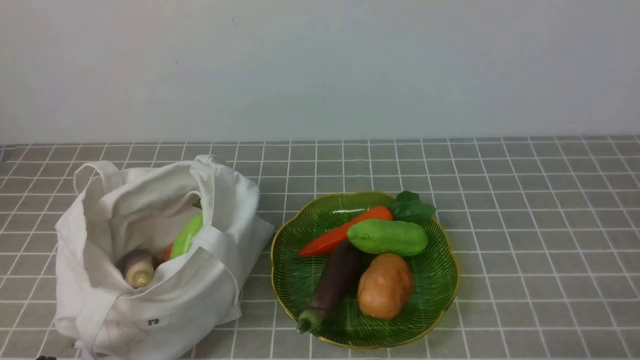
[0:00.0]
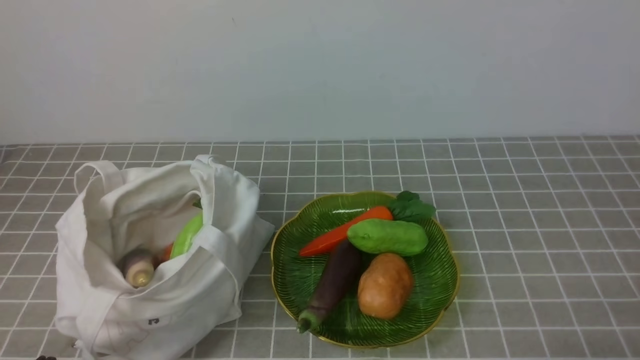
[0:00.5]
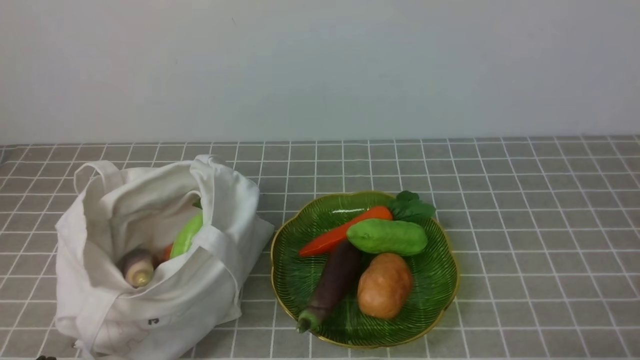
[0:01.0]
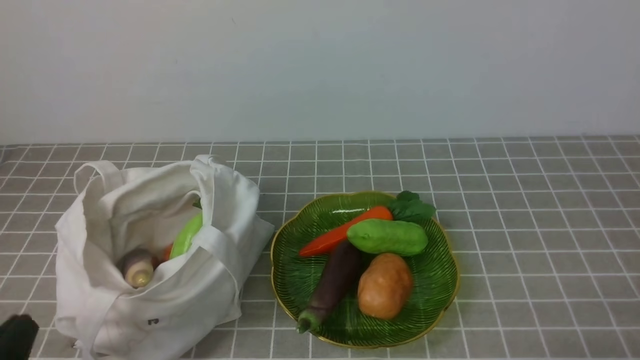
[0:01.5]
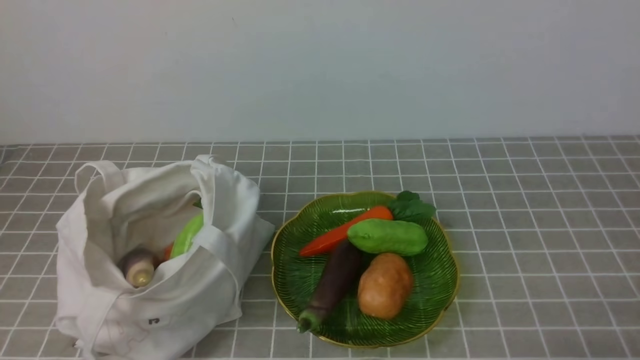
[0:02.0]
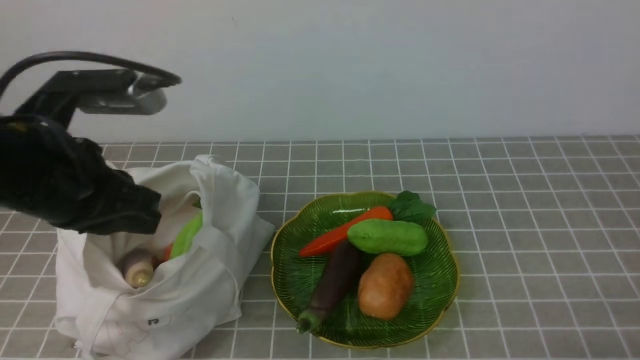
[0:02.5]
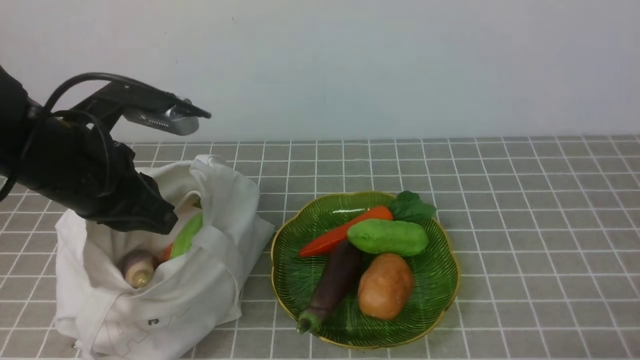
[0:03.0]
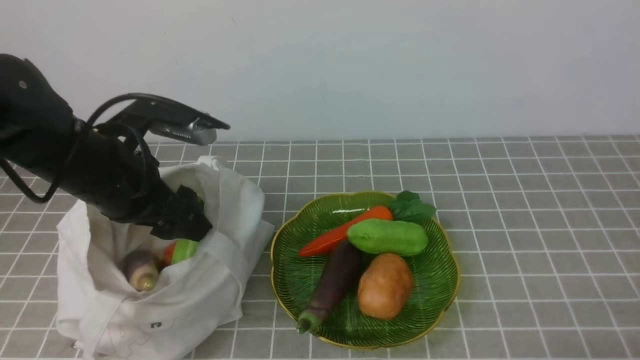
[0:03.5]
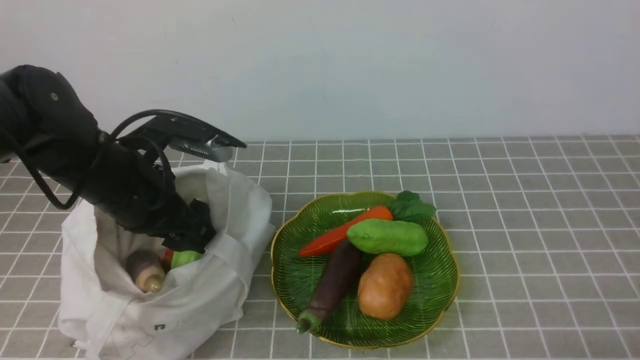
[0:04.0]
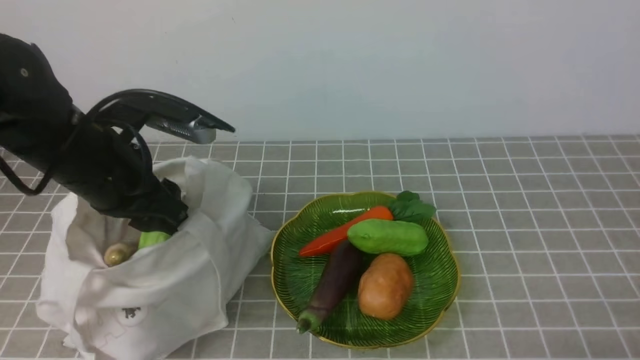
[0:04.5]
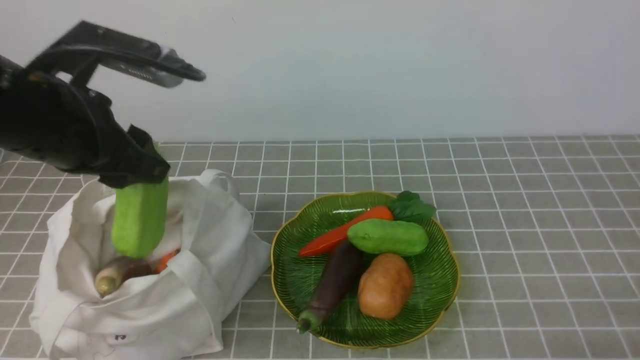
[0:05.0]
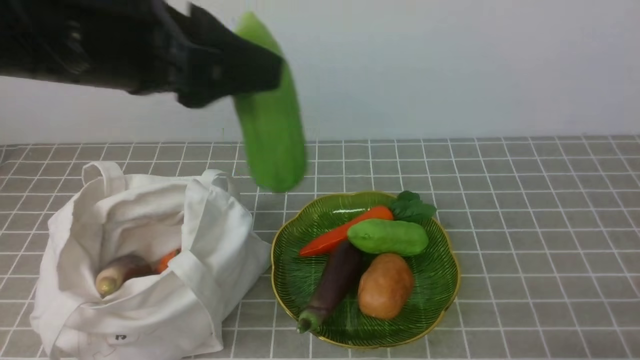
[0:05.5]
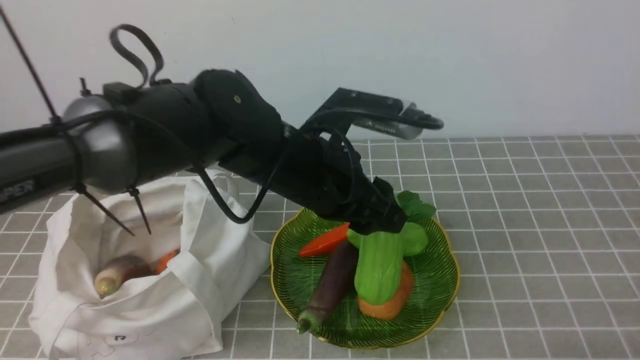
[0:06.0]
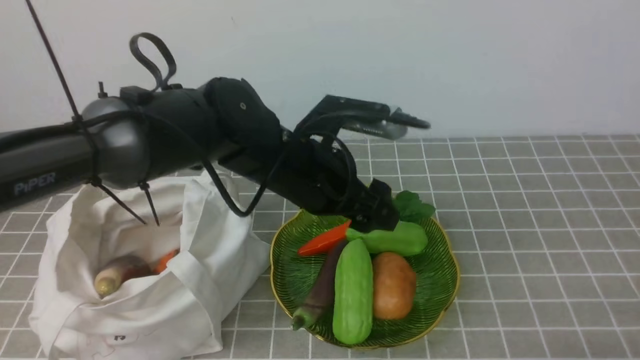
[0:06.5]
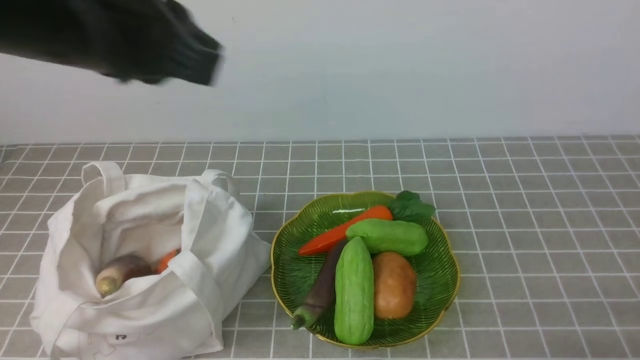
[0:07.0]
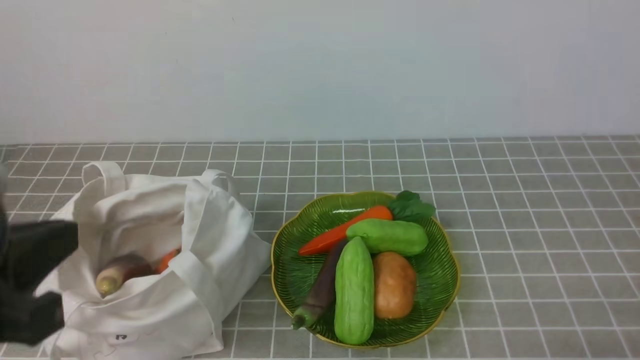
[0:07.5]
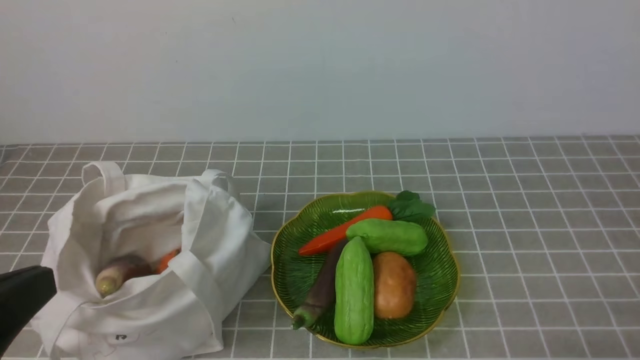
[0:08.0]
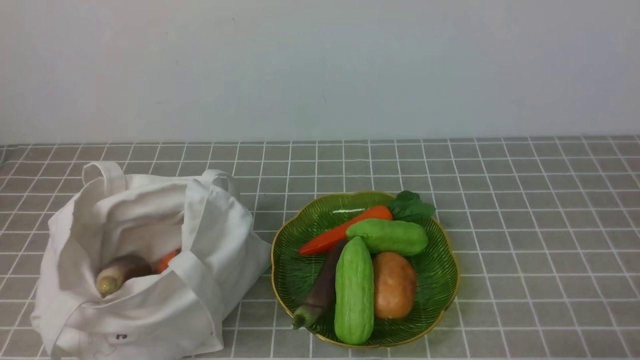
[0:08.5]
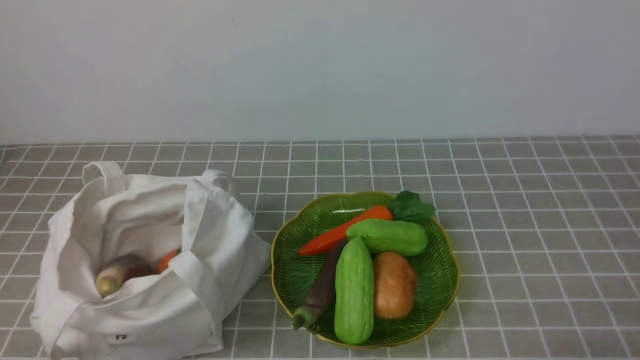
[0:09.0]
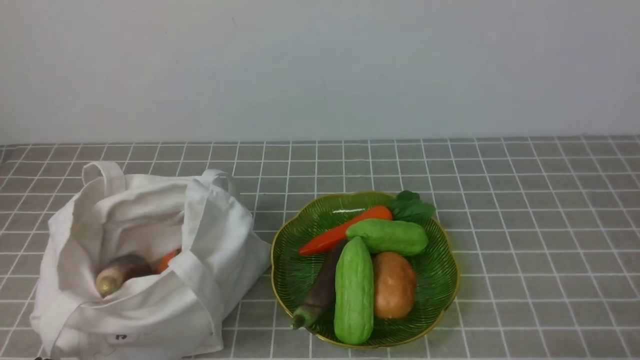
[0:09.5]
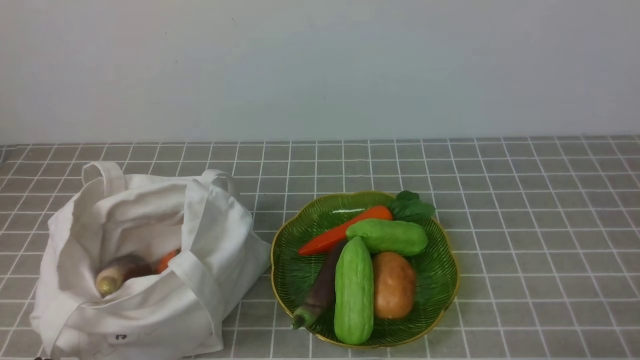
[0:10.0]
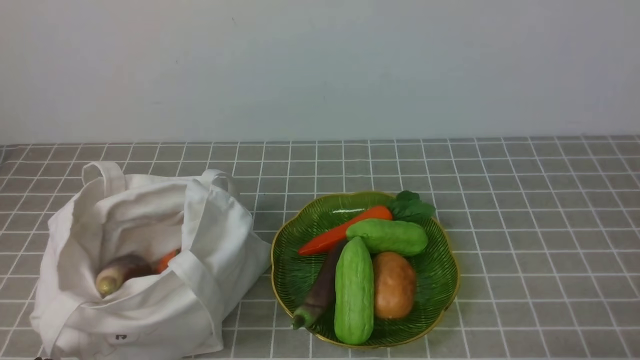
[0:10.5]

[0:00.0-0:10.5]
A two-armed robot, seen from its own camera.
Task of the whole recording: take vegetables from bag on grey coffee tablecloth place on plate.
Step, 0:00.0 to 0:04.0: Grasp the bitter melon with left gripper.
Step, 0:04.5 to 0:06.5: Place the bitter melon on the plate with left gripper.
0:02.0 to 0:04.0: The left gripper shifts some 25 cm forward, and opens up.
0:04.0 to 0:06.5: The left gripper is displaced to the right by some 15 cm.
0:06.5 to 0:08.5: The left gripper goes some 35 cm backward and to the left, and closes.

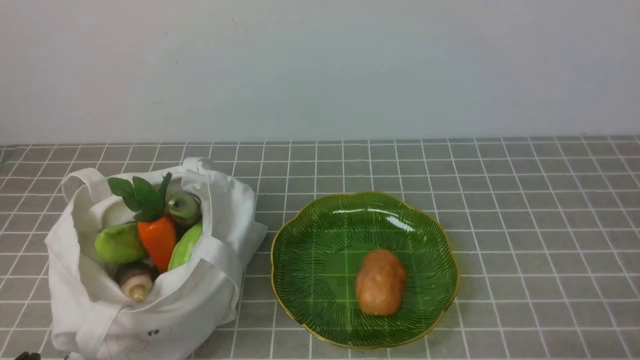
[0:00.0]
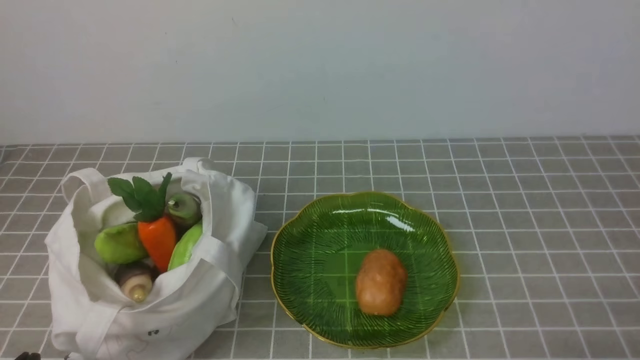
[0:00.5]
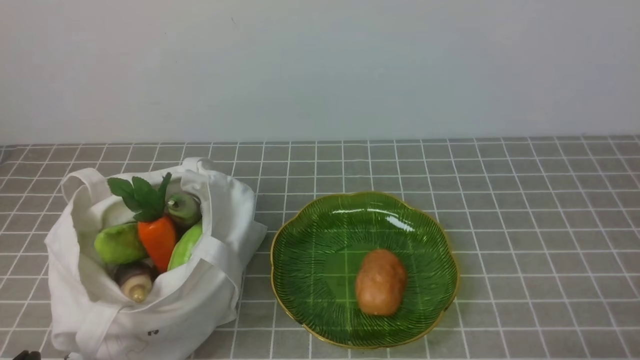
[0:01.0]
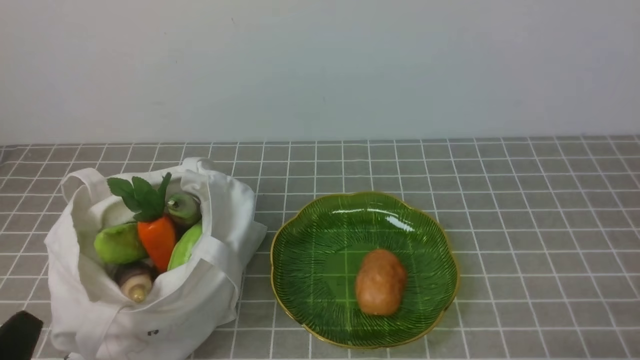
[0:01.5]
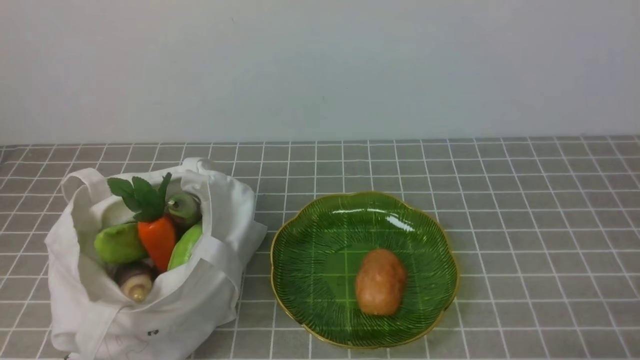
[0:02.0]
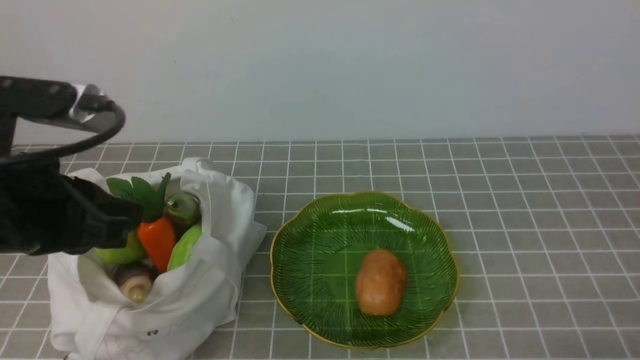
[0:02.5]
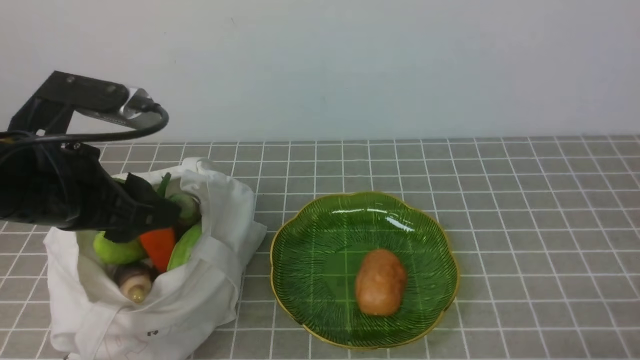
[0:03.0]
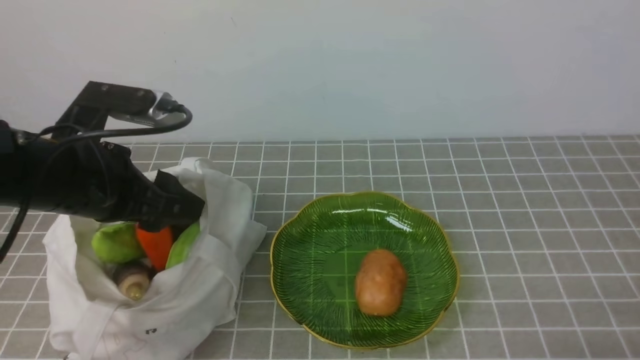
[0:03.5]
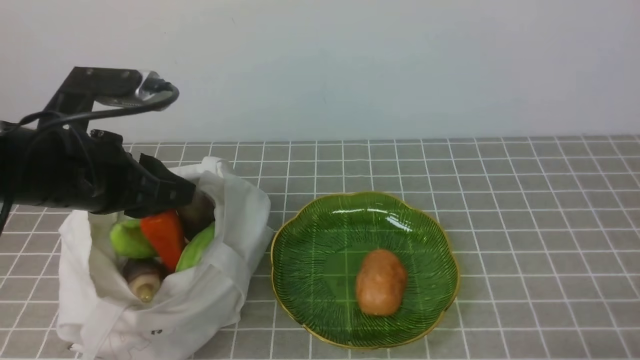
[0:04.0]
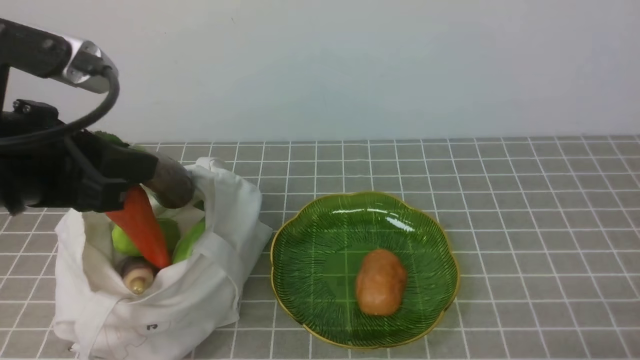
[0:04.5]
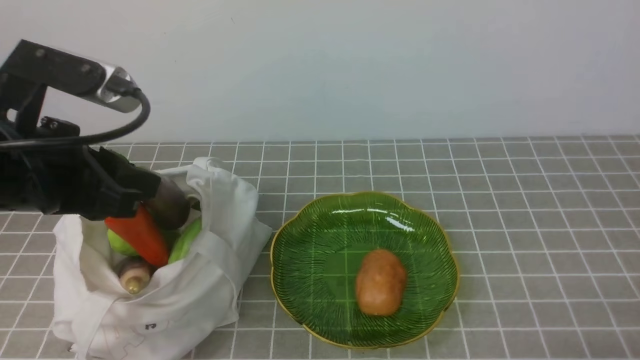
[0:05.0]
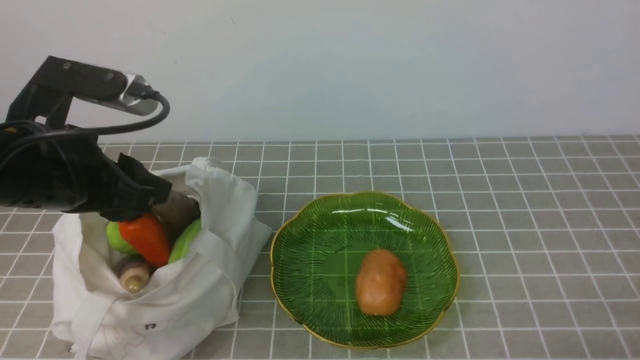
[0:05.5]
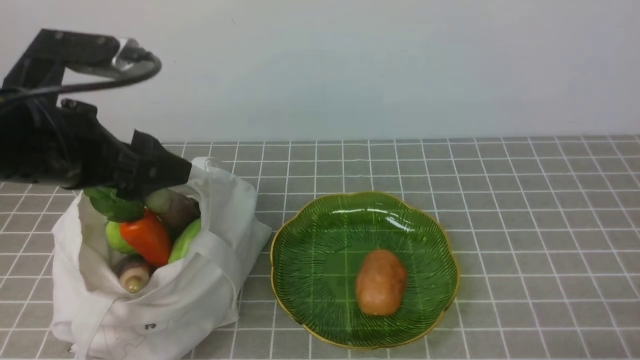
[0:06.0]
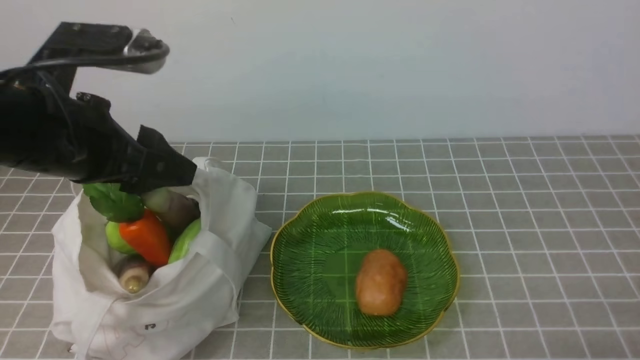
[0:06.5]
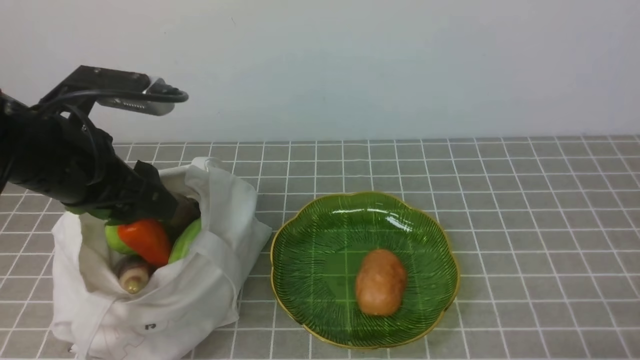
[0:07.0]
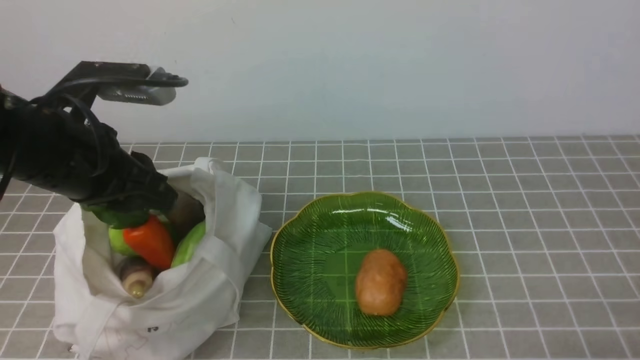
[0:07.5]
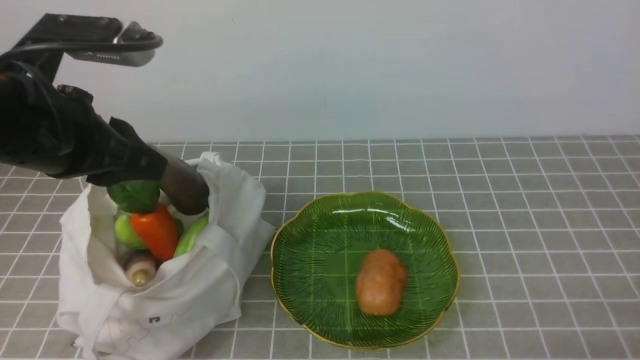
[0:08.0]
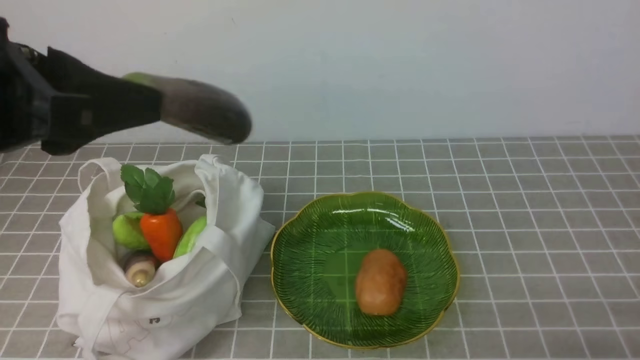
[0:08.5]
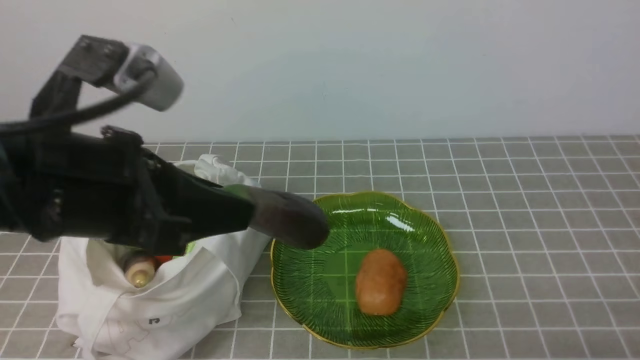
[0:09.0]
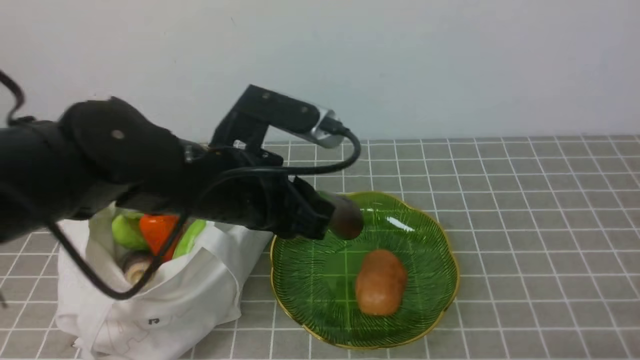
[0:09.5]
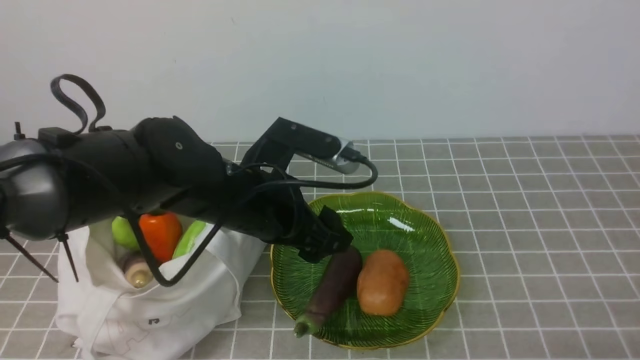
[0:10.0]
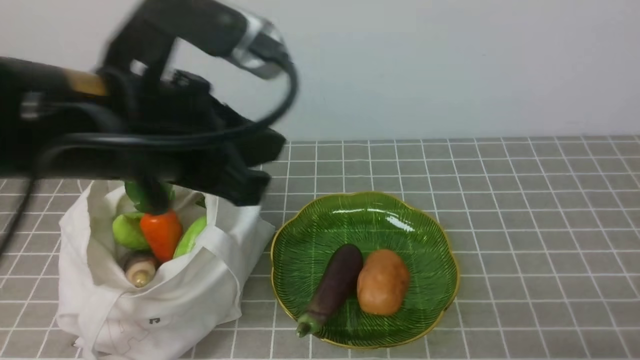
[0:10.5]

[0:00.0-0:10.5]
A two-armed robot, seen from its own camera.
Task of the whole recording: take vegetables from bag on grey coffee tablecloth place on plate.
Step, 0:00.0 to 0:07.0: Grasp the eggplant with left gripper.
Step, 0:07.5 to 0:10.0: Place the eggplant on the plate with left gripper.
0:02.0 to 0:04.0: The left gripper travels forward by approximately 20 cm, and opens up.
0:04.0 to 0:06.5: The left gripper opens.
0:06.5 to 0:08.5: The left gripper travels backward and upward by some 10 cm, and closes up.
0:08.5 to 0:10.5: The left gripper shifts about 5 cm to the right, reaches some 15 cm downward, then returns, and opens, then closes again.
